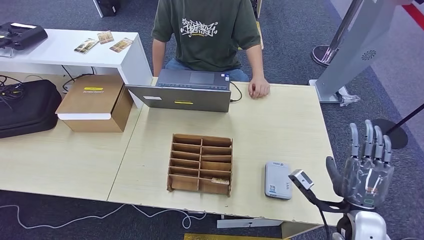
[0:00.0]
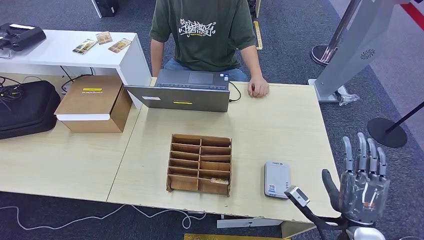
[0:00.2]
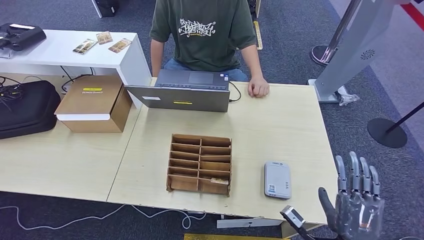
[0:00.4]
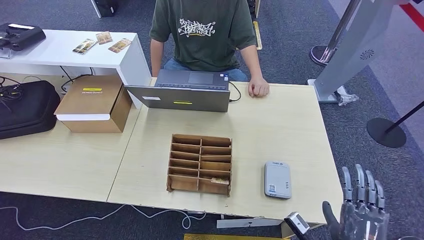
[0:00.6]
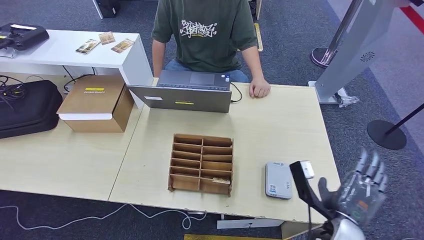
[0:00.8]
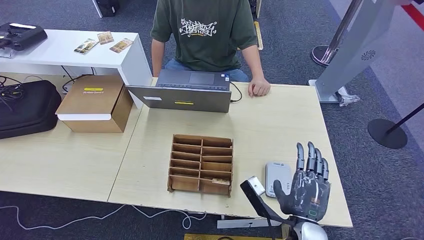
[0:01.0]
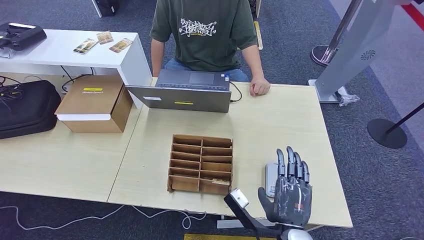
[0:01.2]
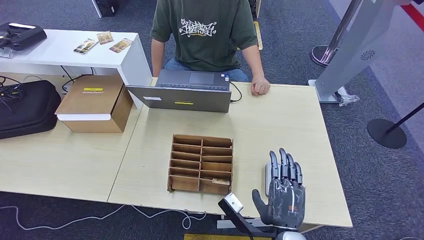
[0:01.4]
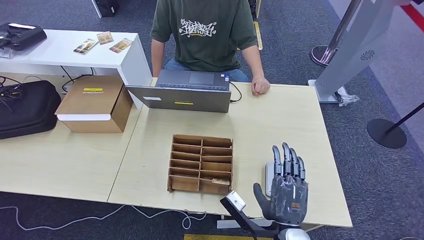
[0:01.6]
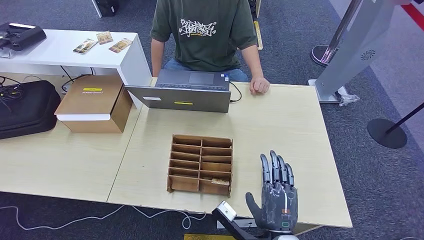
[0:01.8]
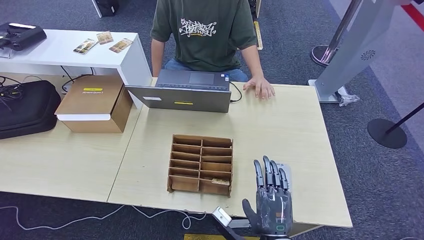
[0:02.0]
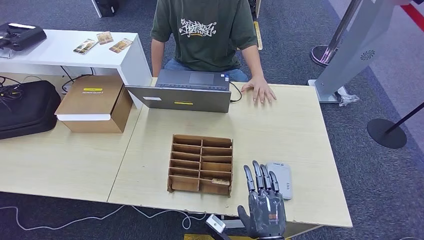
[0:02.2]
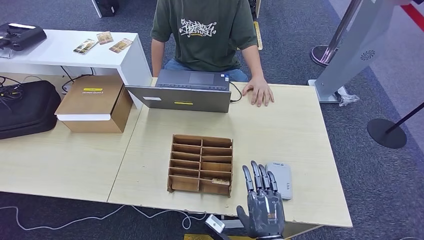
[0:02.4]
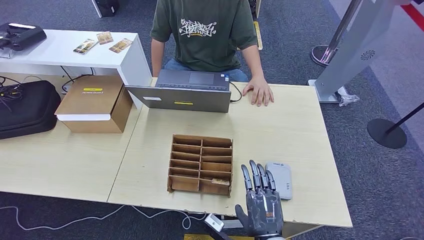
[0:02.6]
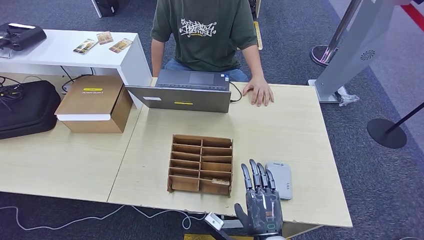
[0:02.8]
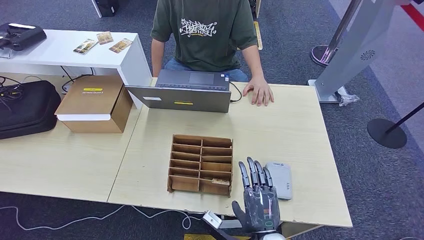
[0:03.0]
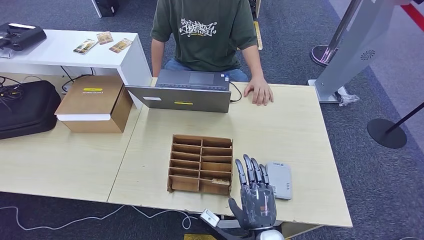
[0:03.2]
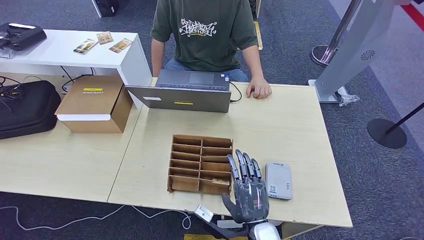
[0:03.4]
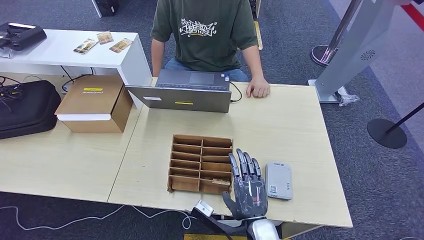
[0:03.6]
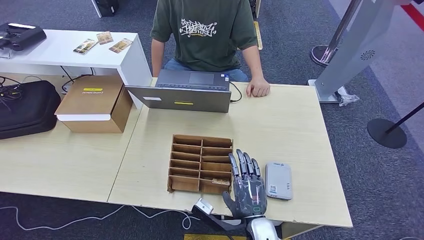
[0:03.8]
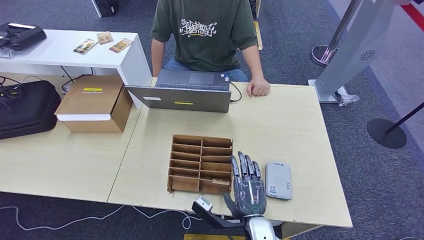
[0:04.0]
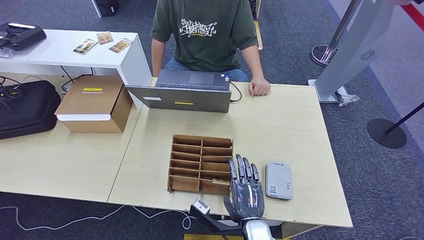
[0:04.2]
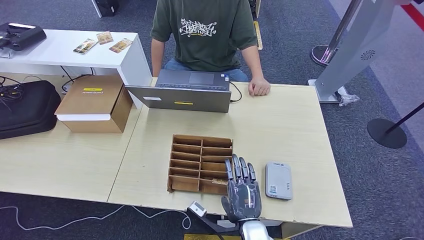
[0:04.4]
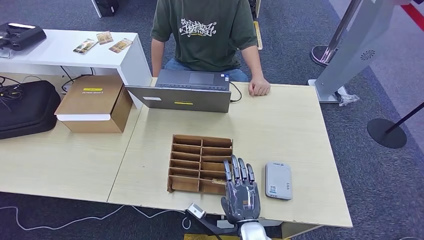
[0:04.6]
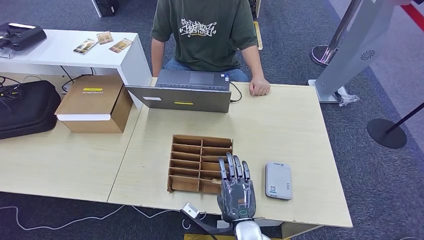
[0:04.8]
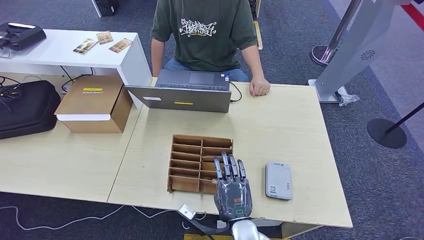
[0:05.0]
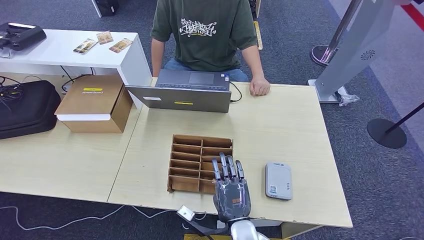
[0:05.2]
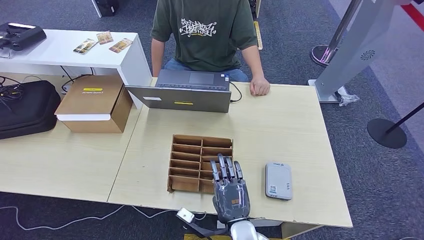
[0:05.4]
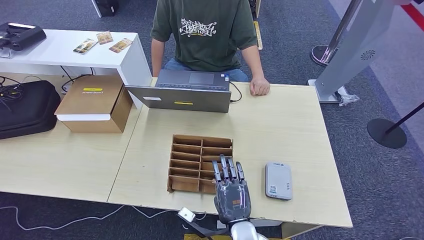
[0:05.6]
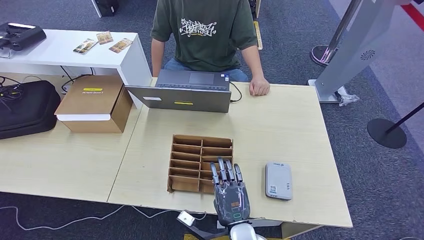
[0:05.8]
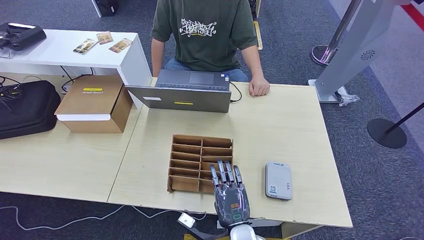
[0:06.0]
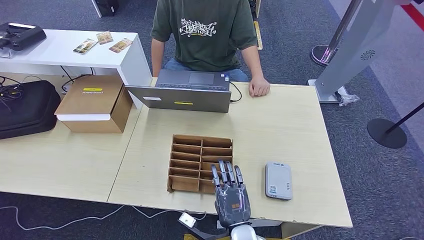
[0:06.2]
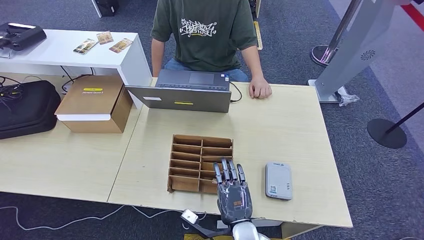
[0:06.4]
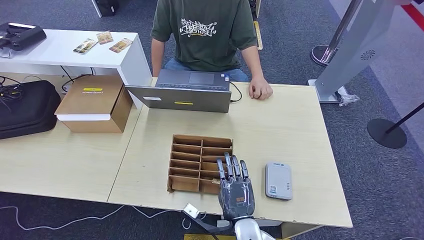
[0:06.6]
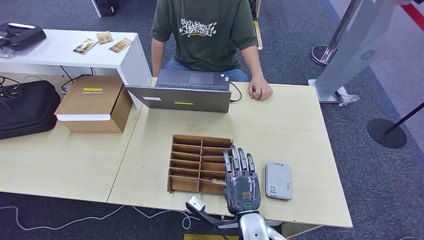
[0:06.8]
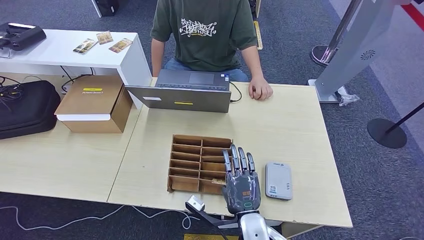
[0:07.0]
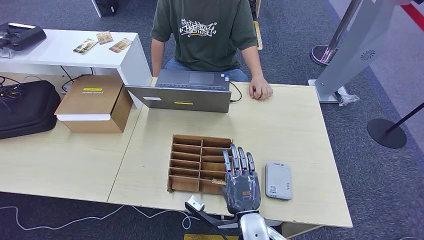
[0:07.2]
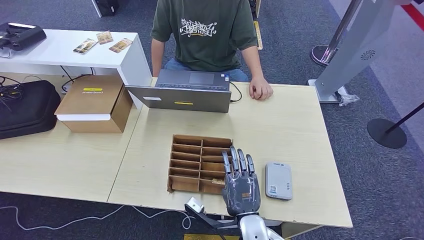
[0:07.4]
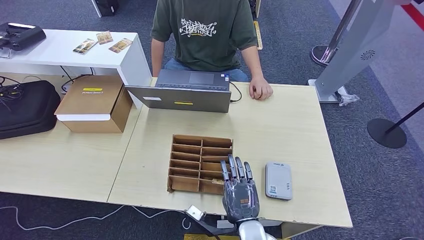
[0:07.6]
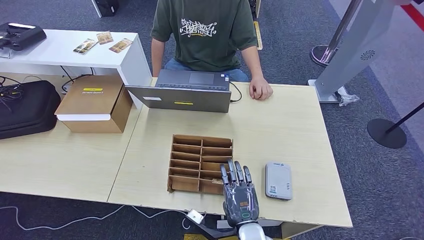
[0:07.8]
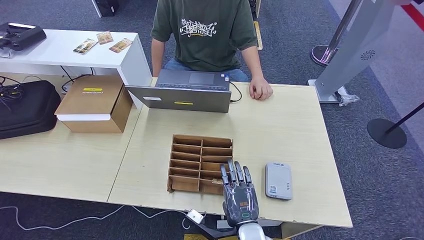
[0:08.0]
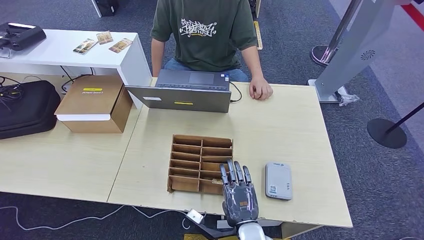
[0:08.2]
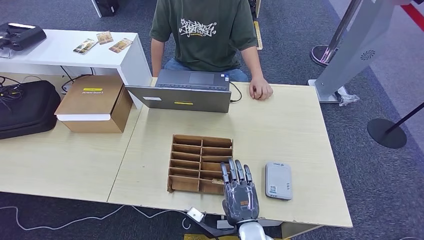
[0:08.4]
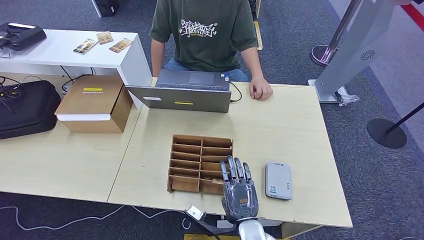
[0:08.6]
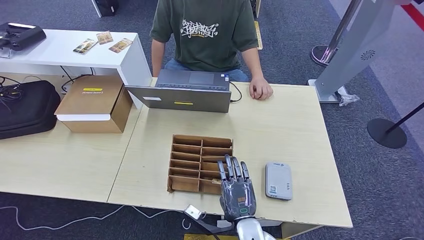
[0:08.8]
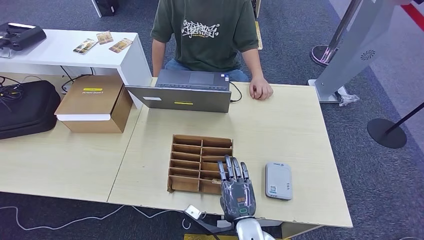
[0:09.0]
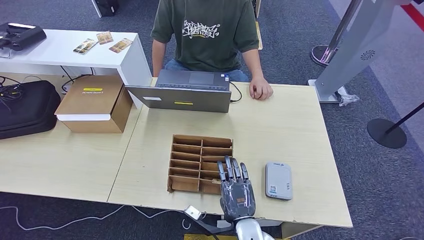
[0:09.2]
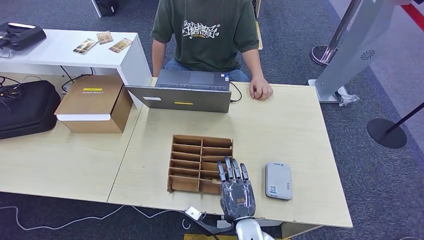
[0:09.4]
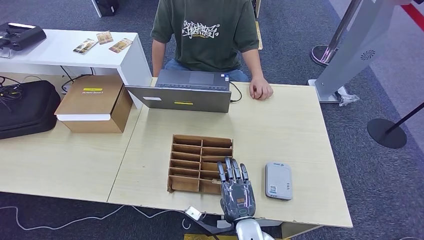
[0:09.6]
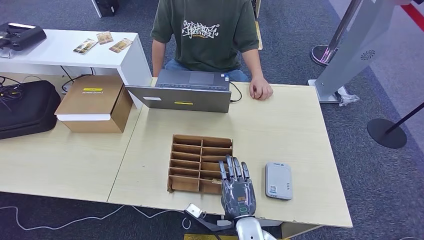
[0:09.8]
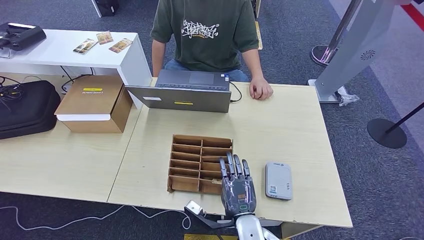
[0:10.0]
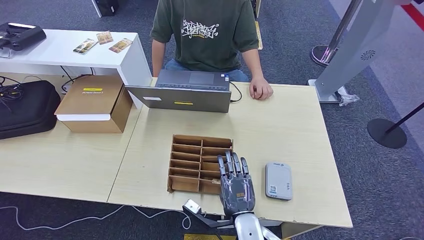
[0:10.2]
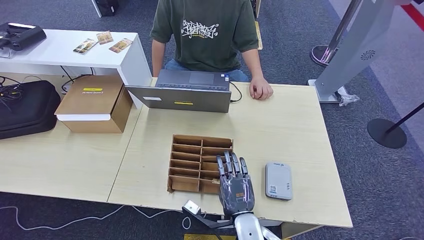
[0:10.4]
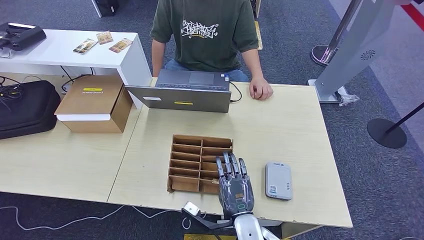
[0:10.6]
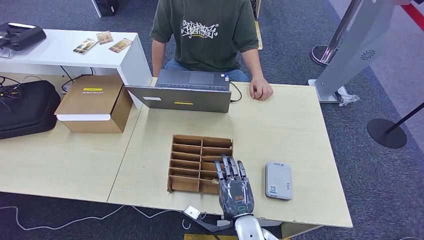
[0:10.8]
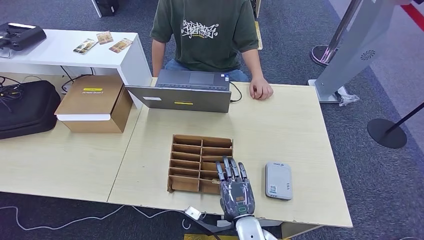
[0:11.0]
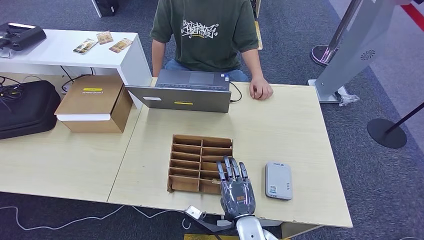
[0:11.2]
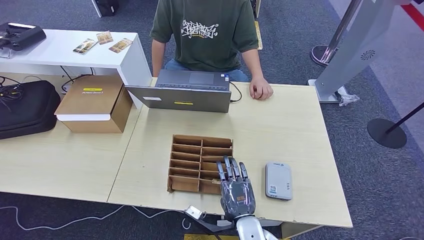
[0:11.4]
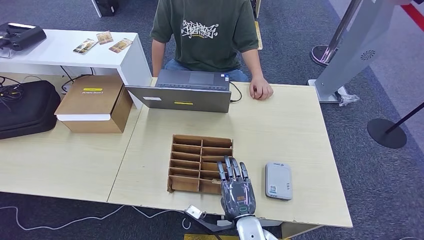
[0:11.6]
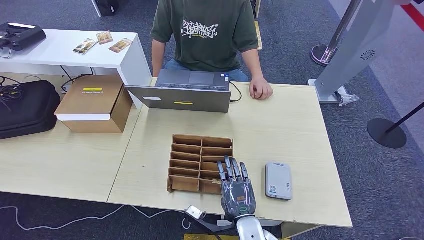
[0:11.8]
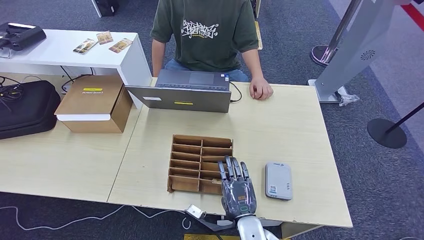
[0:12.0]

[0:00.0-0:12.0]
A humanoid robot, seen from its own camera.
0:00.0 to 0:01.6: The right hand shifts approximately 15 cm to the left.
0:01.6 to 0:03.0: The hands stay close to where they were, moving slightly.
0:03.0 to 0:07.6: The hands make only small movements.
0:07.6 to 0:09.0: Both hands stay about where they are.
0:09.0 to 0:12.0: Neither hand changes place.

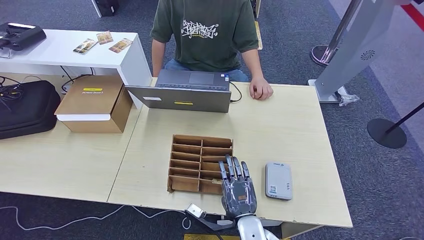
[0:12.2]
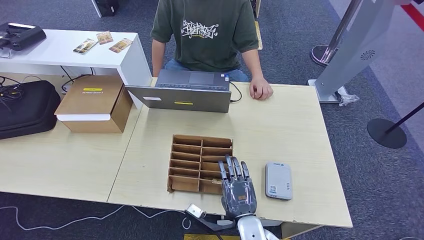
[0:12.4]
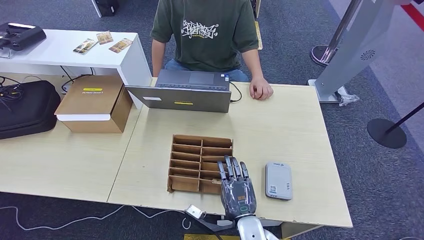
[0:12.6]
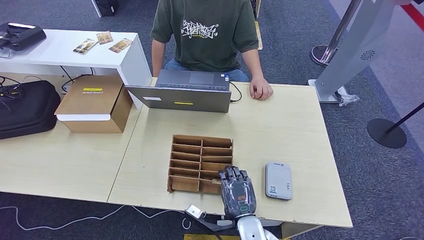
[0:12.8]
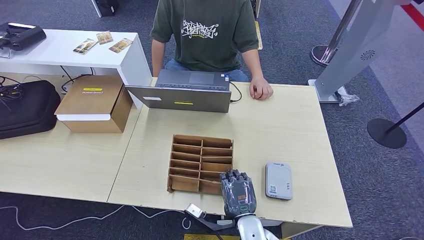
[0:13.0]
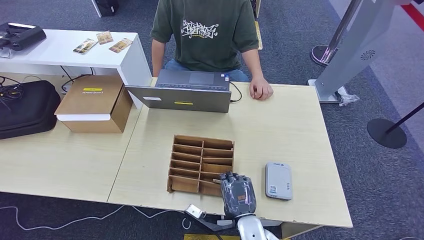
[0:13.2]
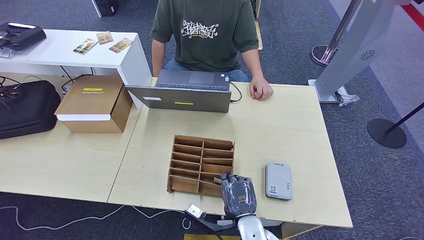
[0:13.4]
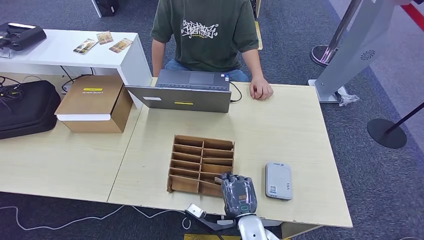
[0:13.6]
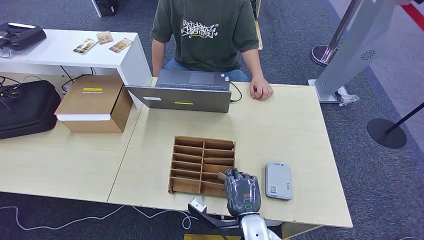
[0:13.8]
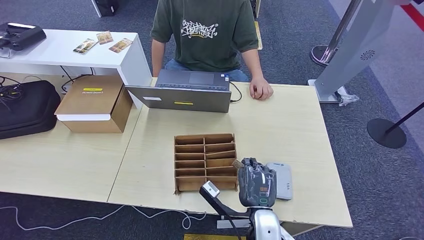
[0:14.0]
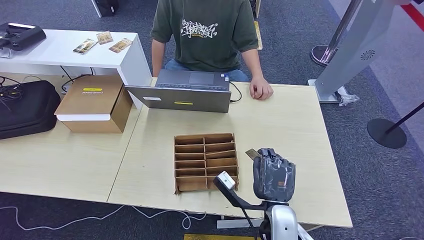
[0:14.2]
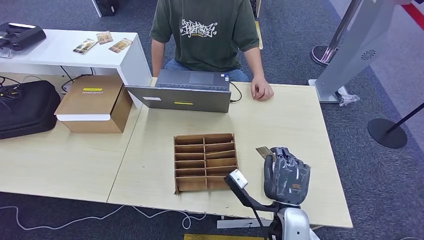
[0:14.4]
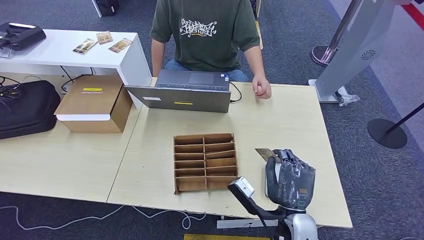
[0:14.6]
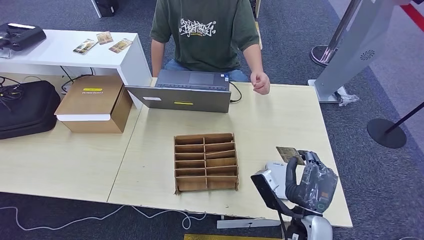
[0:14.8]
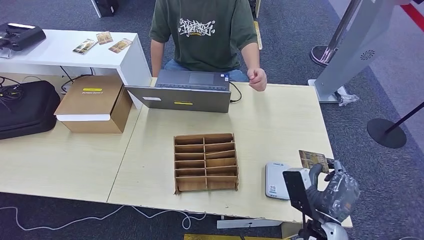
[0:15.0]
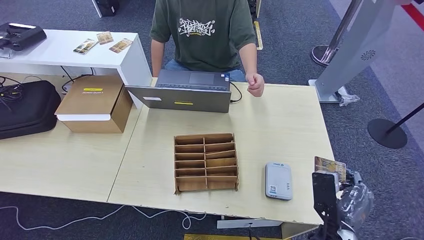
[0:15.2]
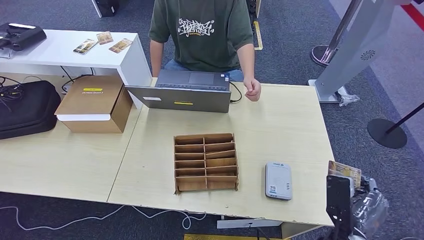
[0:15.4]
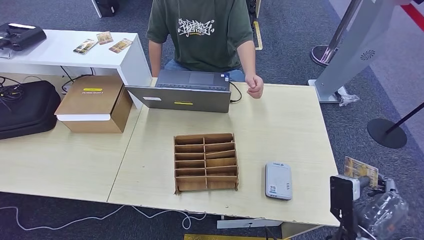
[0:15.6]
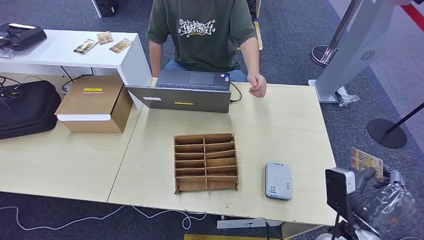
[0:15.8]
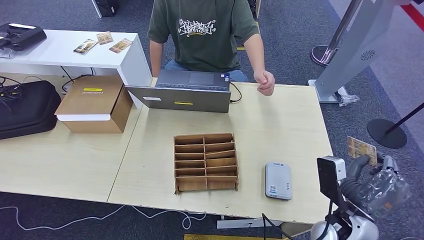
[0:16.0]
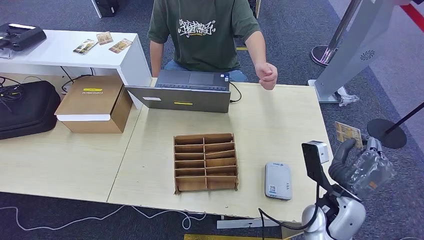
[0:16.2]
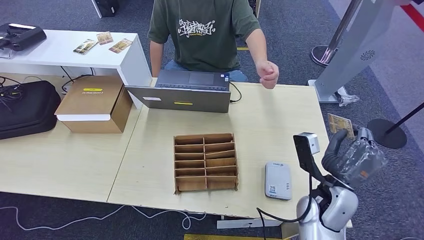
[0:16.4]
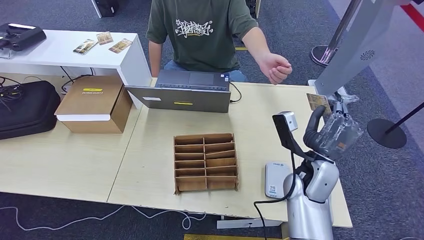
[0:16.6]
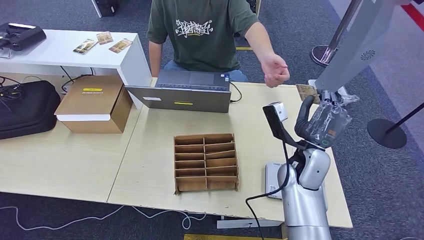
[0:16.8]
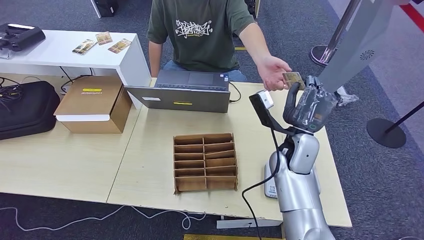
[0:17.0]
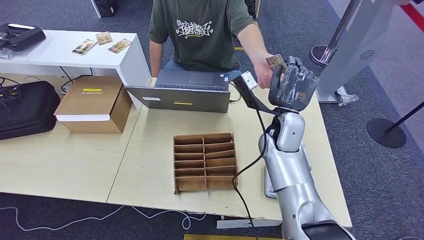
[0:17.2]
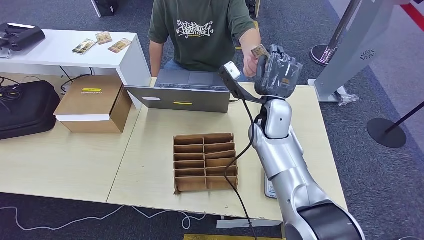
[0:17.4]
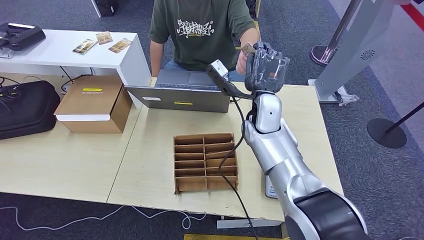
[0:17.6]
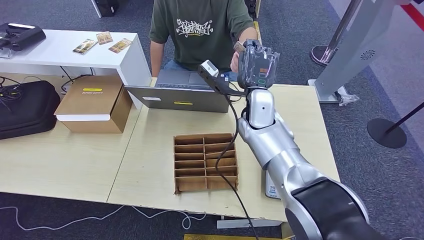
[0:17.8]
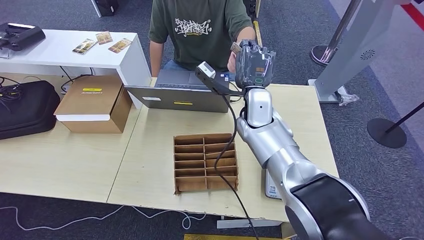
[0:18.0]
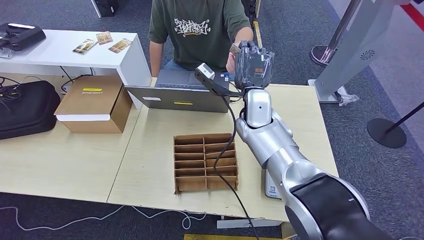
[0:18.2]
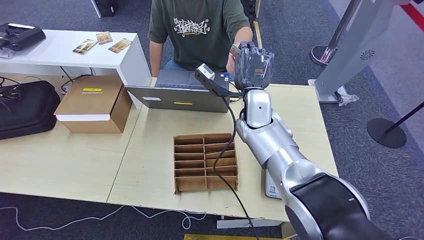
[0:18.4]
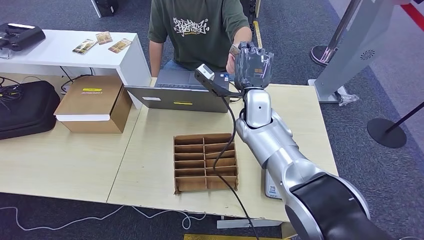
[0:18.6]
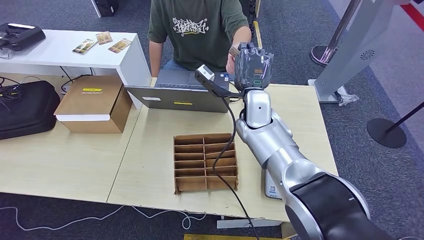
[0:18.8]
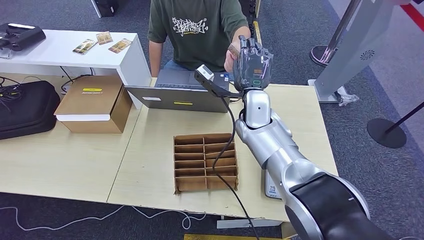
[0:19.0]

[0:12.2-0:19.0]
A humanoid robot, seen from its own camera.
Step, 0:12.2 to 0:14.6: Pick up the room key from the key card box.
0:12.2 to 0:13.6: Neither hand changes place.
0:13.6 to 0:15.0: The right hand moves to the right and upward, approximately 15 cm.
0:15.0 to 0:16.2: The right hand shifts some 5 cm forward.
0:16.2 to 0:17.6: The right hand heads forward, to the left and upward, covering roughly 25 cm.
0:17.6 to 0:19.0: The hands stay close to where they were, moving slightly.
